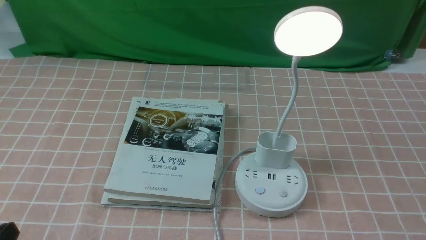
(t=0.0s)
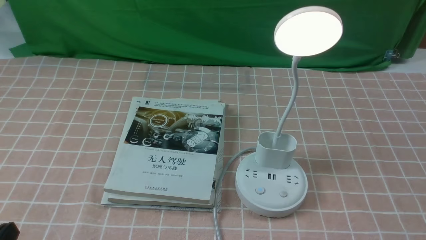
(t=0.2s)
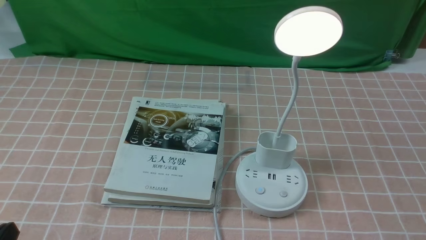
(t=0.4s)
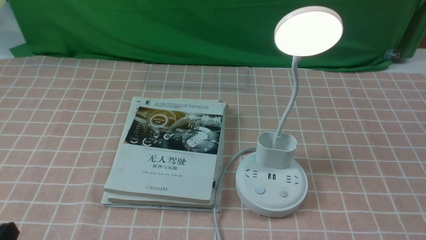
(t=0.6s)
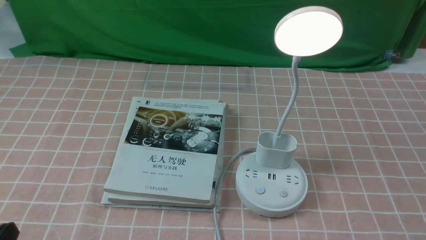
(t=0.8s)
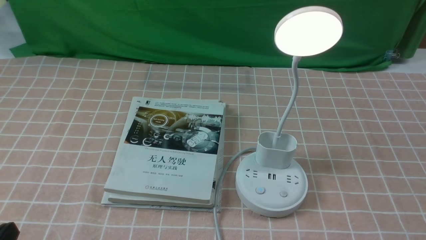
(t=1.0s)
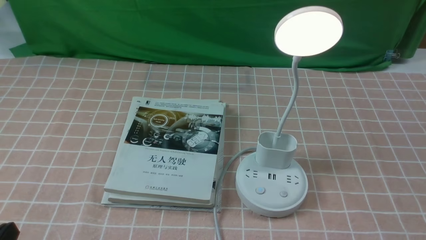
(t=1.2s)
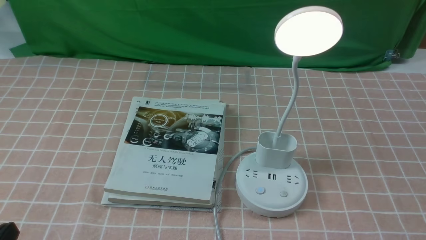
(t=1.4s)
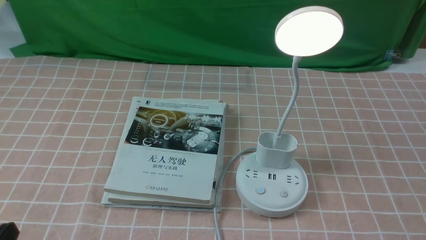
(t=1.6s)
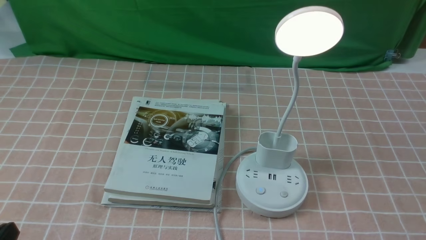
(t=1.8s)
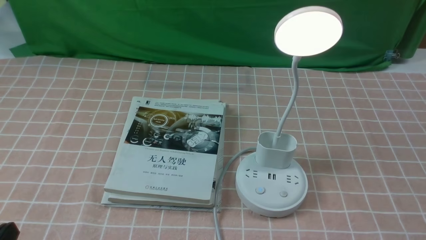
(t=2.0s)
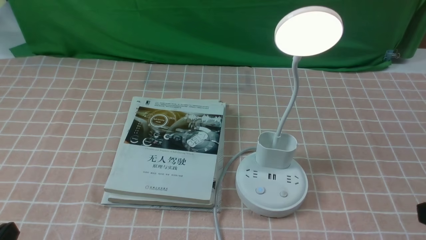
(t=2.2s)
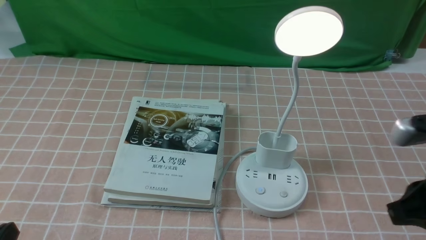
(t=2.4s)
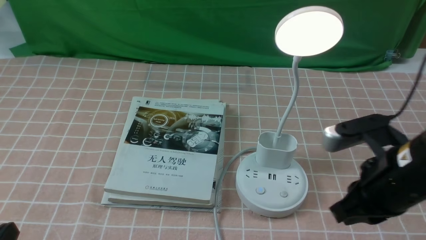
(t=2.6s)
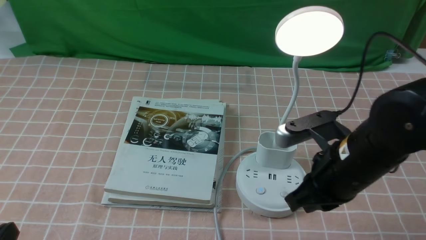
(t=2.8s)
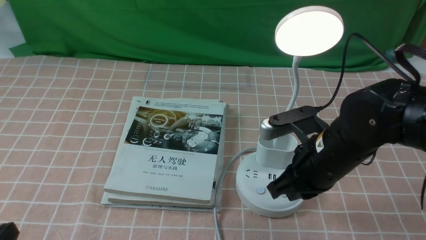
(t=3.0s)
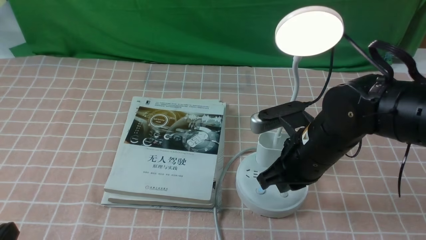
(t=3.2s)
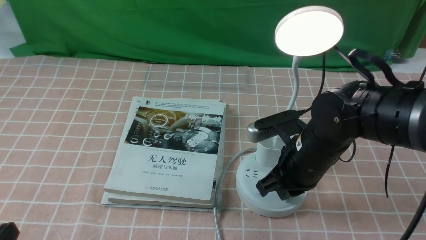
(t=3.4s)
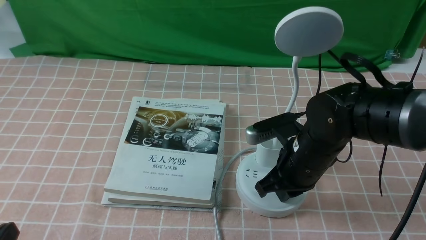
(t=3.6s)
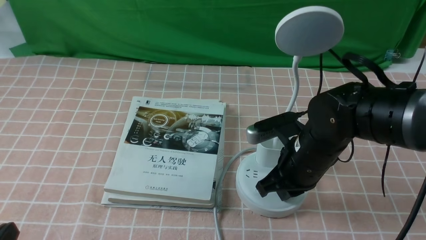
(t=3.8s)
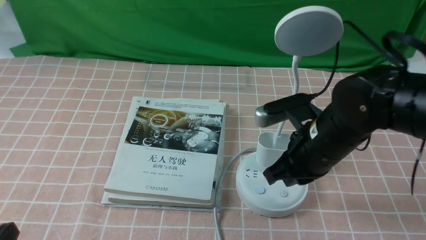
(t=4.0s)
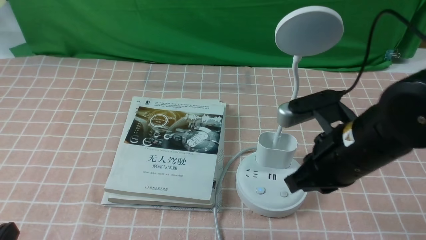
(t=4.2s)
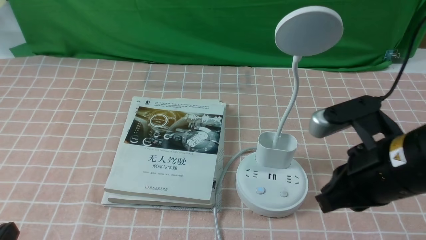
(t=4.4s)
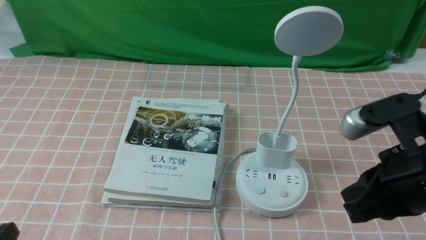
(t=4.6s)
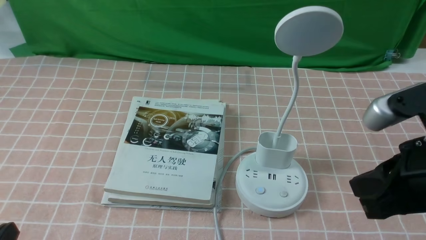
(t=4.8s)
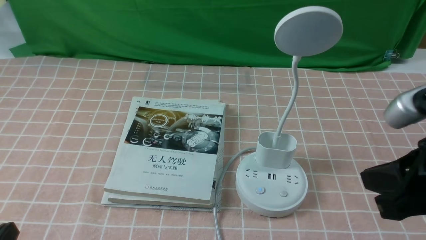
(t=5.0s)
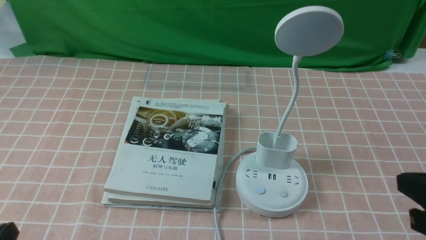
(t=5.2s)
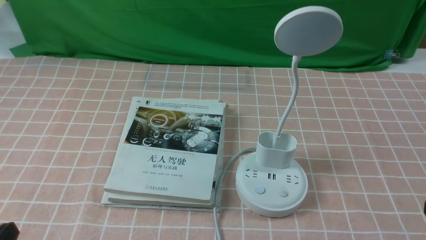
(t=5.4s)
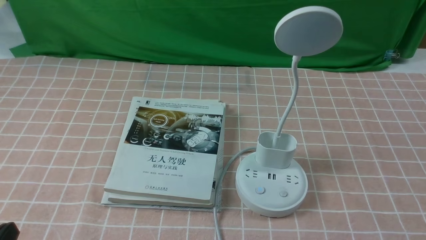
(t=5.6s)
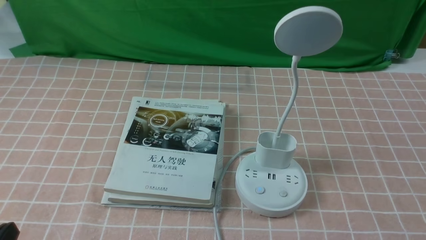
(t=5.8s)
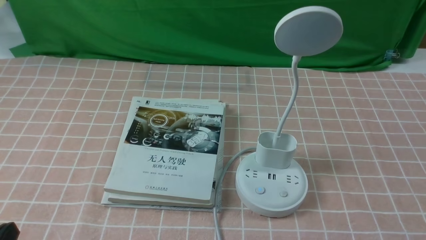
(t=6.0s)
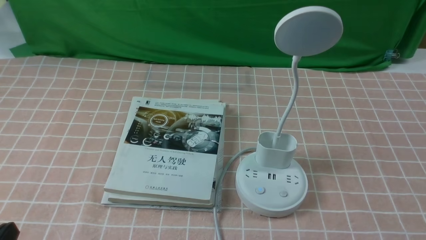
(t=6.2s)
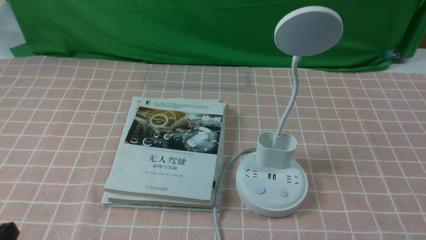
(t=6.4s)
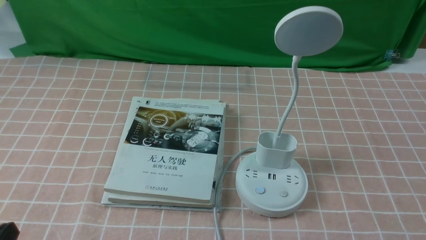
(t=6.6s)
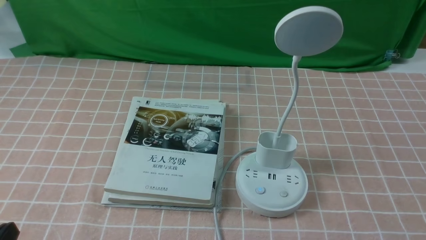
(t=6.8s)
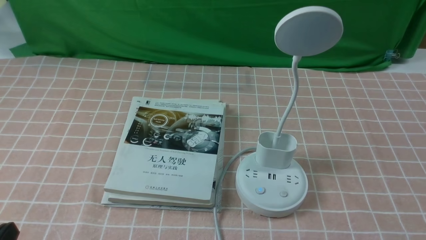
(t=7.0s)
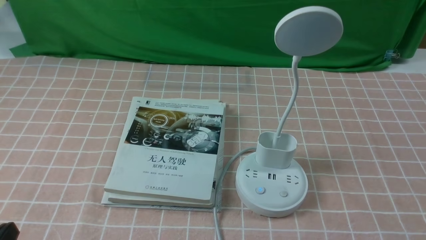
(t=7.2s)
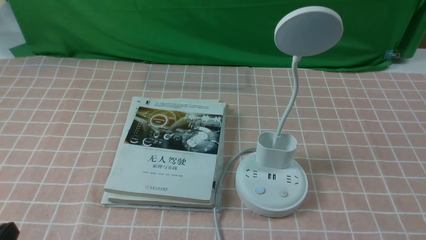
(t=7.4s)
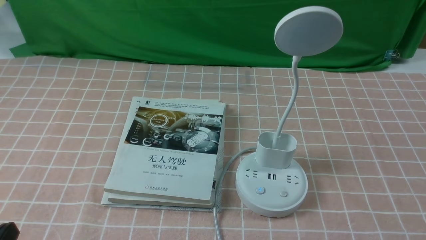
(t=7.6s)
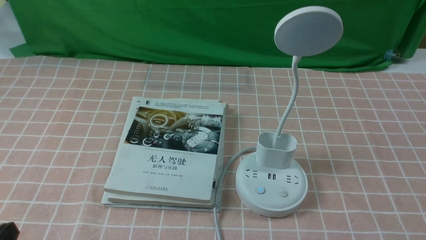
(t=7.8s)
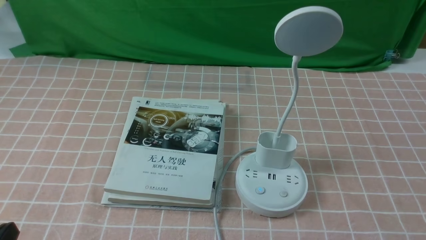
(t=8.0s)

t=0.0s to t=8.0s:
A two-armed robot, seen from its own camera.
Task of the whole recording: turn off the table lamp on the pink coffee tablecloth by hand.
Step, t=0.0s to t=4.0s: use the right arm to press the button switch on the lamp holder.
t=1.6s to t=3.2s: The right gripper shifts approximately 30 cm forward and to the left, and closes.
t=3.2s to t=4.8s: The right gripper shifts approximately 20 cm backward, upward and to the right.
t=4.8s to t=6.4s: The right gripper goes about 20 cm downward, to the right and backward.
